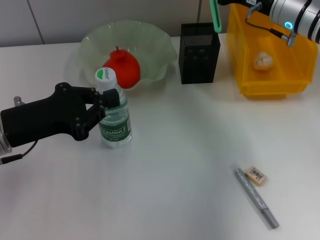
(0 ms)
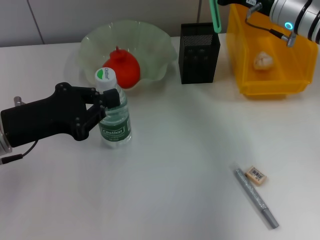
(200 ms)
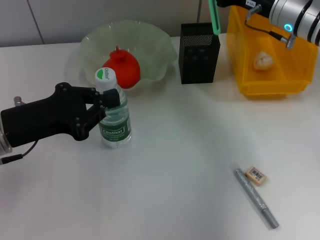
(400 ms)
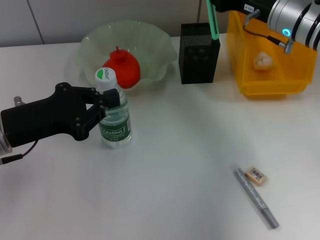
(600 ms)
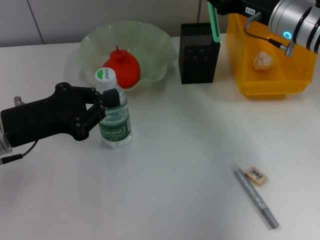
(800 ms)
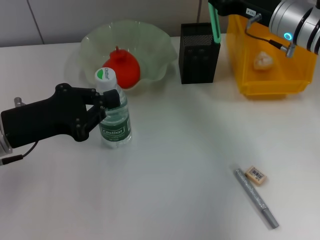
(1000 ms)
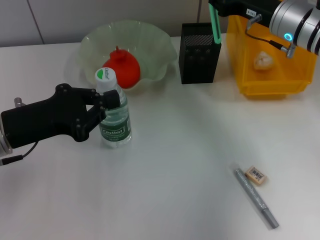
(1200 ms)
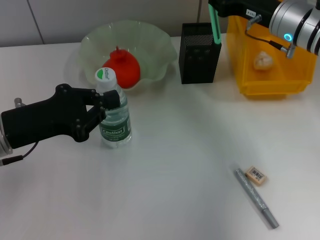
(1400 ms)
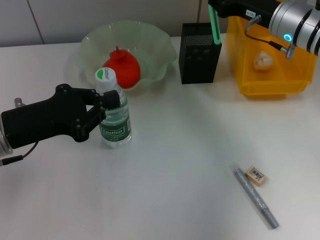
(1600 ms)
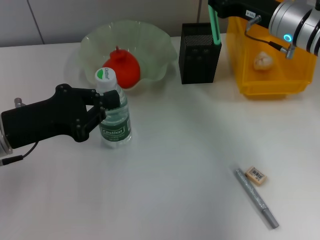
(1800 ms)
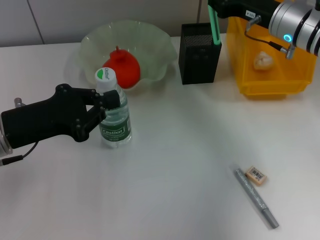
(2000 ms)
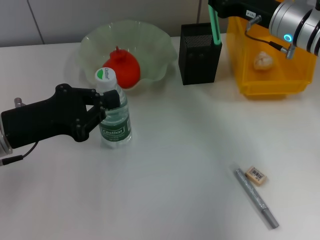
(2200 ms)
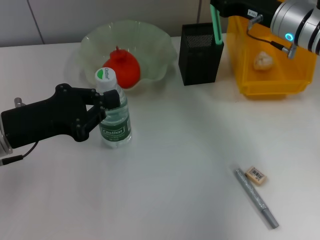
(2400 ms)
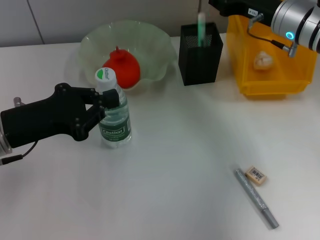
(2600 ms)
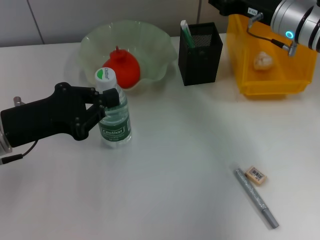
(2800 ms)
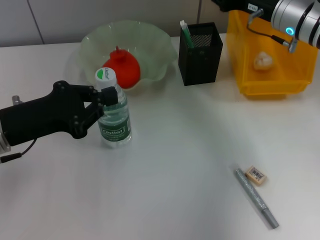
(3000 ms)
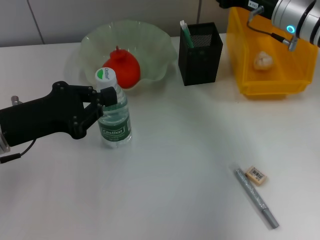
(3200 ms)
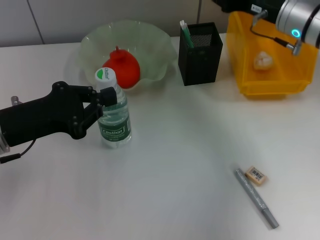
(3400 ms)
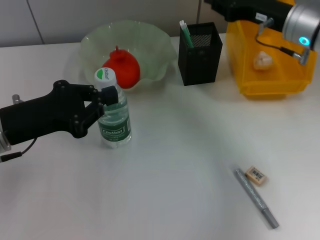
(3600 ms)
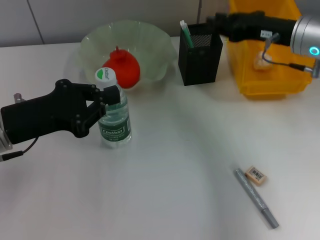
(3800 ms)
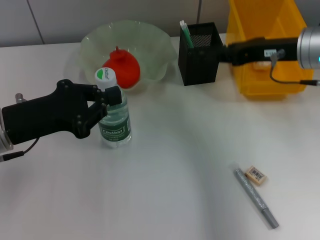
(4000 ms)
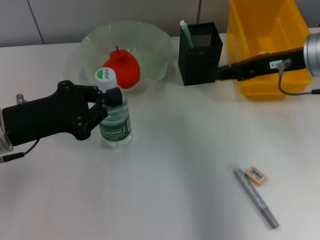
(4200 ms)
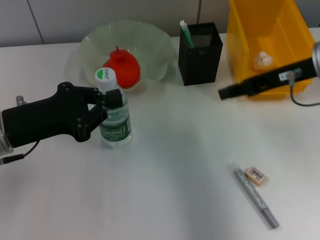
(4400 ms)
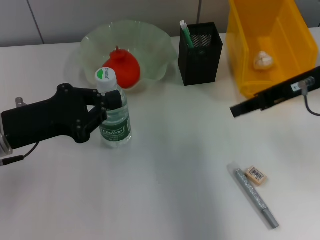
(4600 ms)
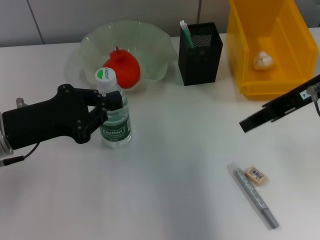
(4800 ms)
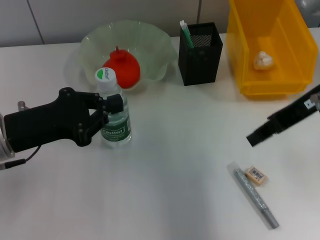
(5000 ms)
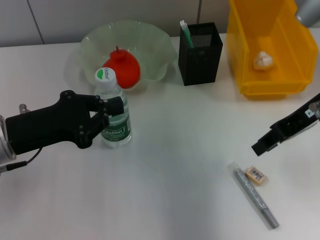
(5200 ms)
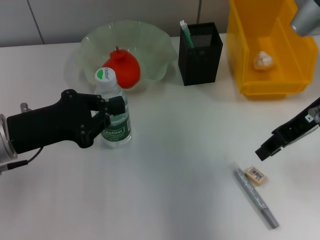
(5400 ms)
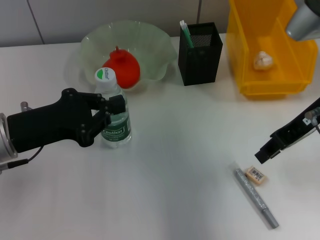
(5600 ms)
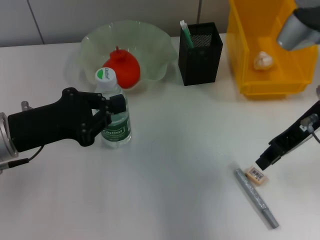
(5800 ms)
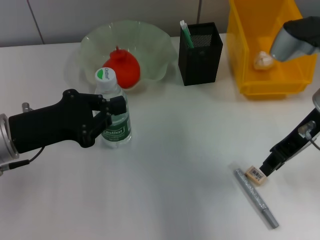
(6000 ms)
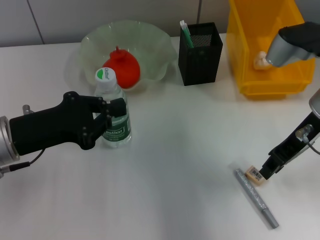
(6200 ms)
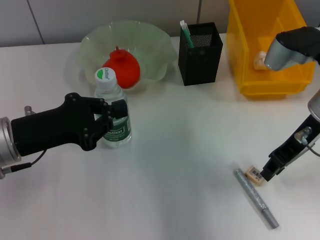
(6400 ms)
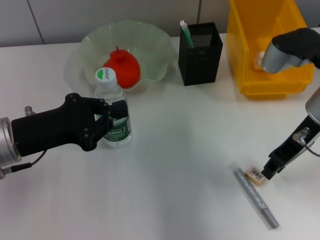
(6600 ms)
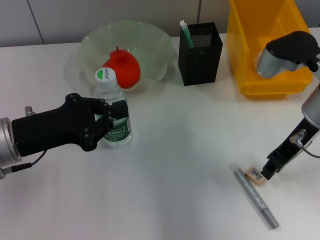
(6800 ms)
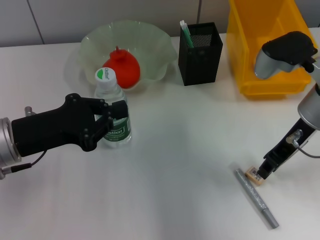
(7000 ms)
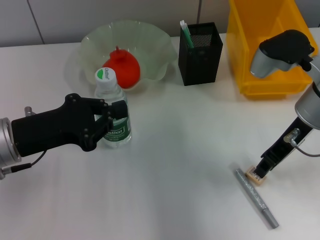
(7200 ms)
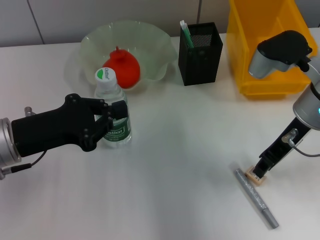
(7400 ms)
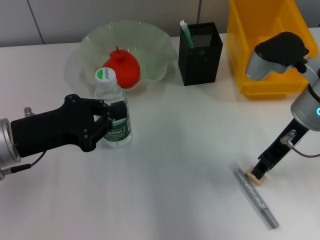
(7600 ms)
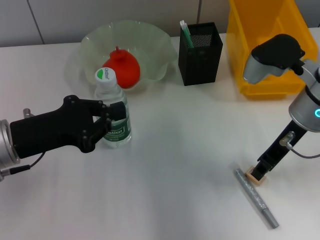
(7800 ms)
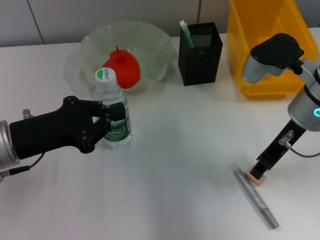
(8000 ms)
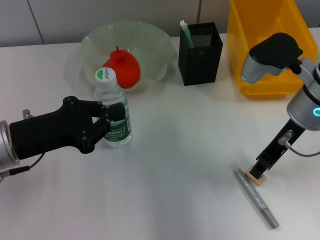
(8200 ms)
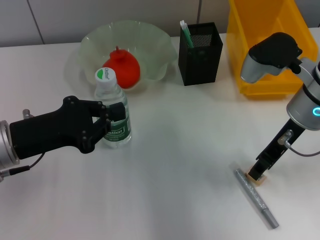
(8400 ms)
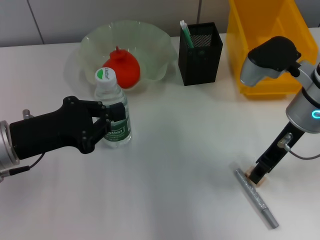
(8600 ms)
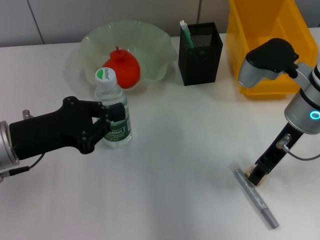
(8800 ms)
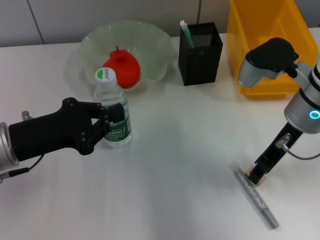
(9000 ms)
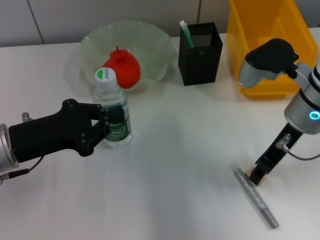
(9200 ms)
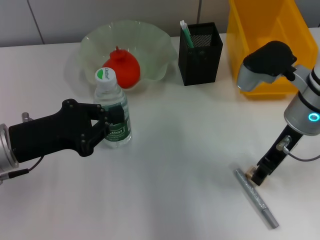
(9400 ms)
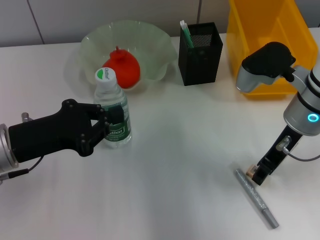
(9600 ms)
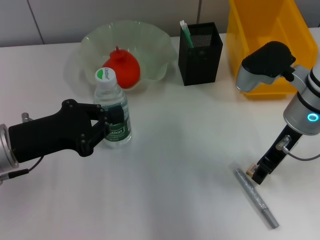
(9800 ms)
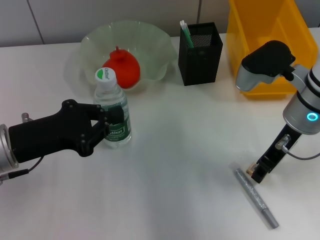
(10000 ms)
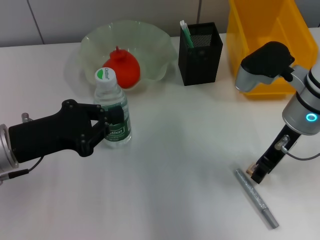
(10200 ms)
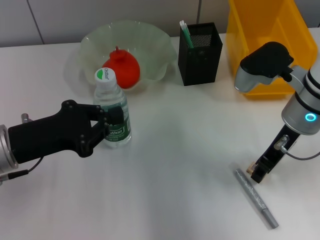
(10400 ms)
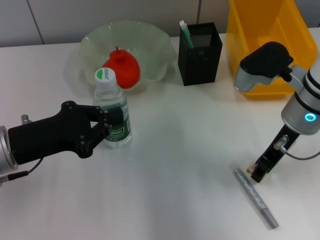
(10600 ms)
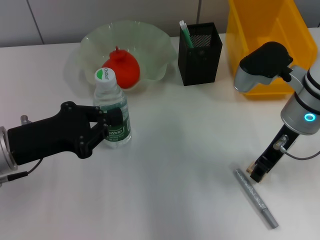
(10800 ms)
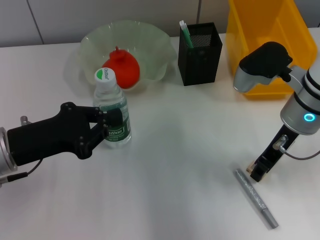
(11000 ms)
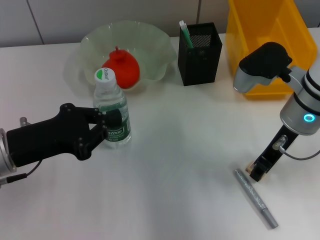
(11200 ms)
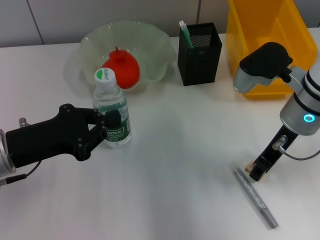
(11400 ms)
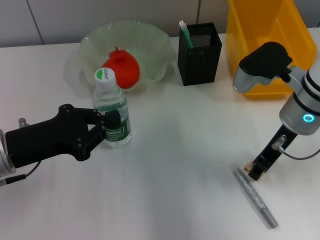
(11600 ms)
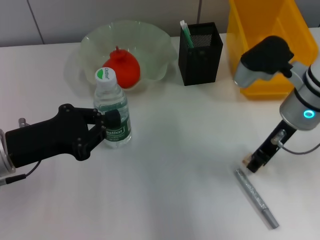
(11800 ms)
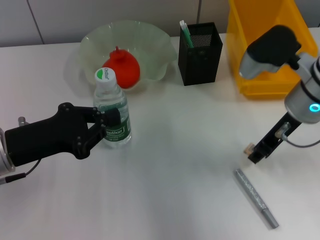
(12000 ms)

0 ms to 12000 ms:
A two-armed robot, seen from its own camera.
Step, 0 ms to 2800 ms: Place the blue utility knife into the pen holder with the right hand.
Step, 3000 ms to 11400 ms: Grab the eraser with the right hand.
0 ms to 1600 ms: The grippers move only a little.
1600 ms to 3000 ms: The two grippers keep their place.
3000 ms to 4400 ms: The right gripper moves backward and upward, roughly 10 cm.
6000 ms to 7600 ms: The grippers stay close to where they were, moving slightly.
7600 ms to 9000 ms: The two grippers keep their place.
9000 ms to 10400 ms: Both grippers stay put.
10400 ms to 12000 ms: The grippers stay close to where they were, moving slightly.

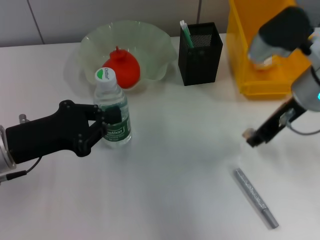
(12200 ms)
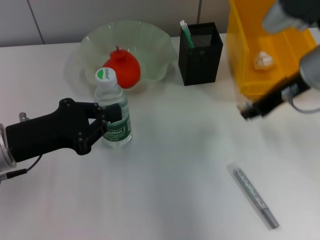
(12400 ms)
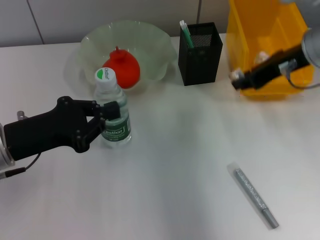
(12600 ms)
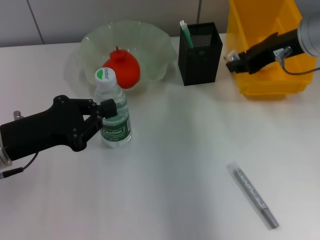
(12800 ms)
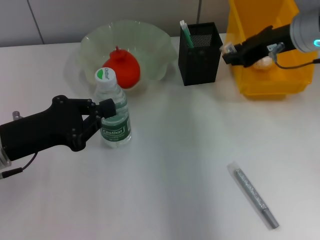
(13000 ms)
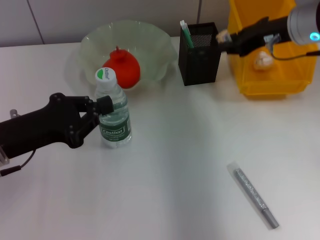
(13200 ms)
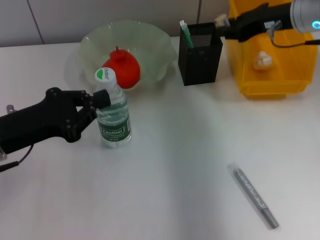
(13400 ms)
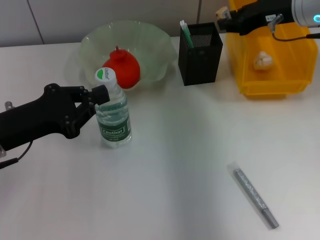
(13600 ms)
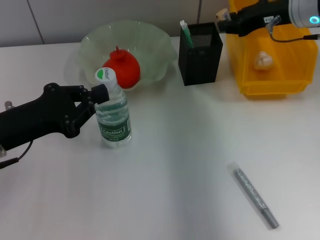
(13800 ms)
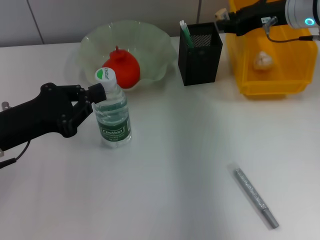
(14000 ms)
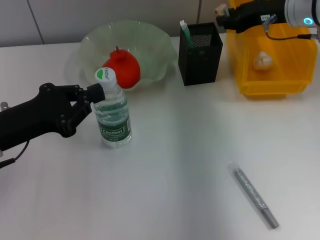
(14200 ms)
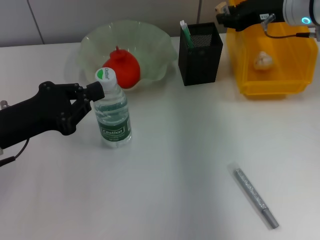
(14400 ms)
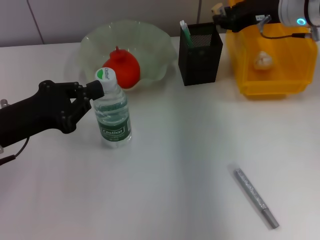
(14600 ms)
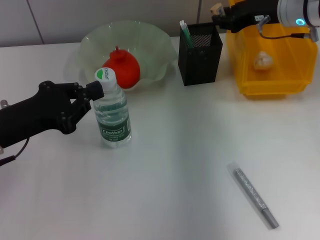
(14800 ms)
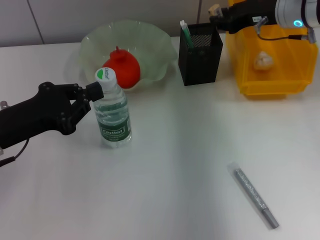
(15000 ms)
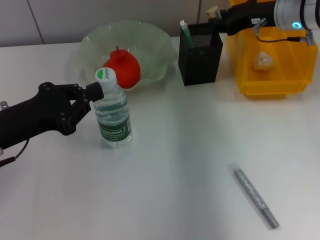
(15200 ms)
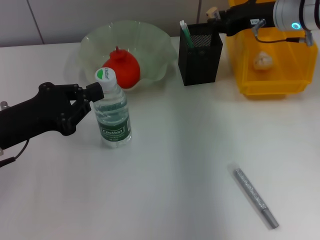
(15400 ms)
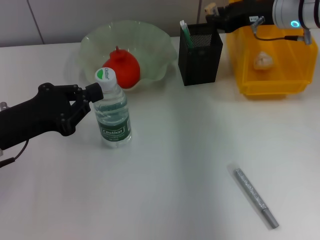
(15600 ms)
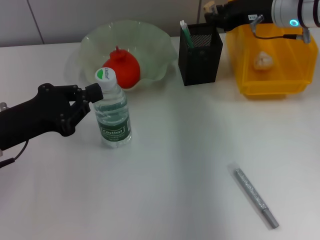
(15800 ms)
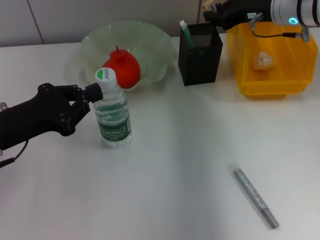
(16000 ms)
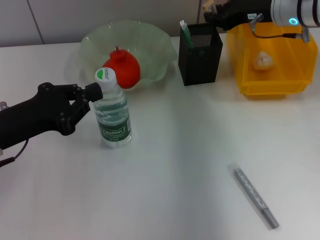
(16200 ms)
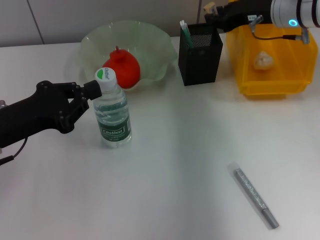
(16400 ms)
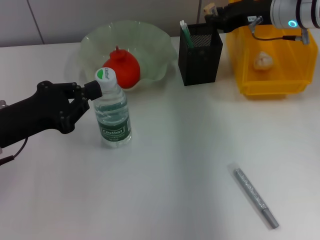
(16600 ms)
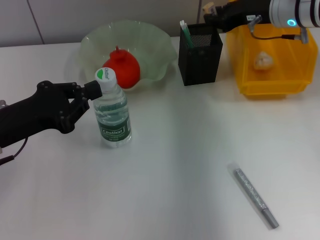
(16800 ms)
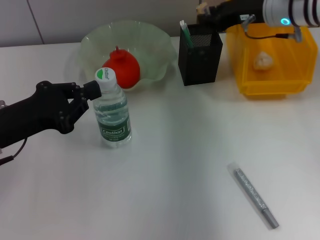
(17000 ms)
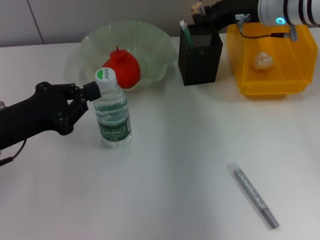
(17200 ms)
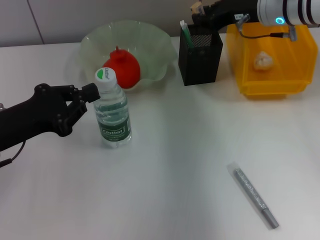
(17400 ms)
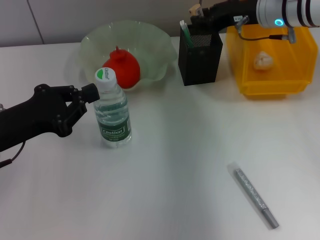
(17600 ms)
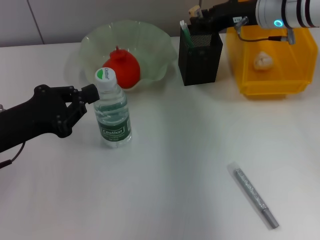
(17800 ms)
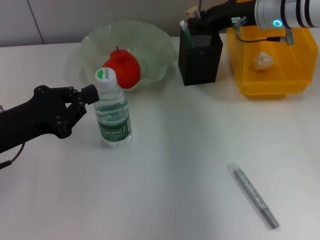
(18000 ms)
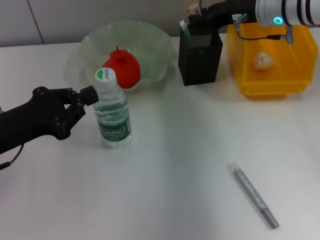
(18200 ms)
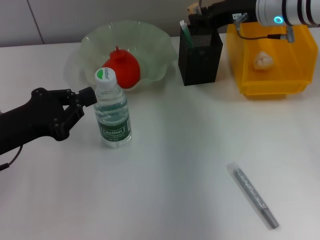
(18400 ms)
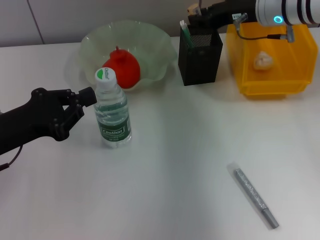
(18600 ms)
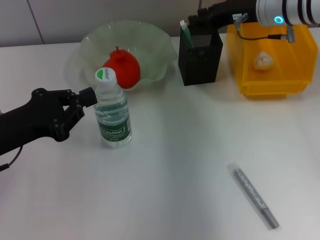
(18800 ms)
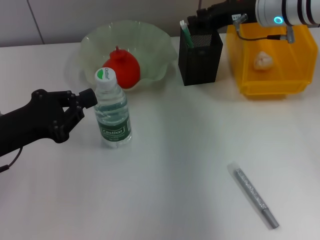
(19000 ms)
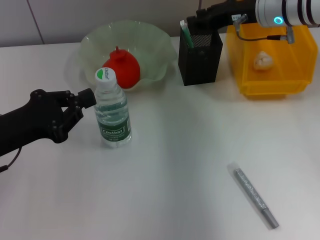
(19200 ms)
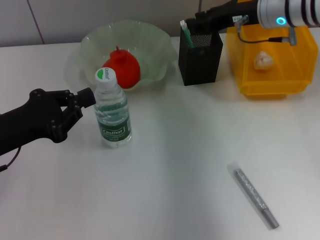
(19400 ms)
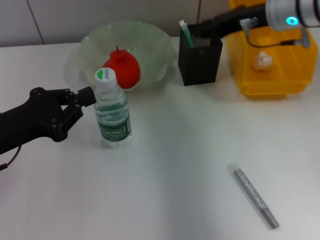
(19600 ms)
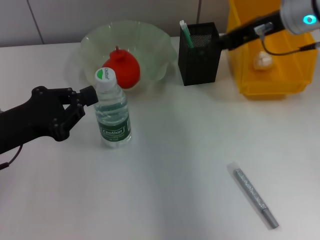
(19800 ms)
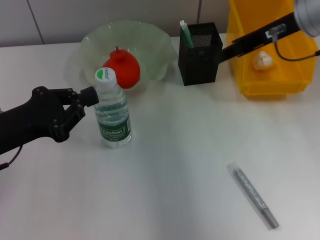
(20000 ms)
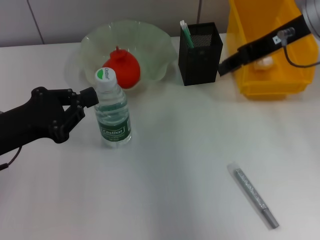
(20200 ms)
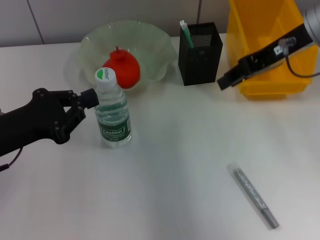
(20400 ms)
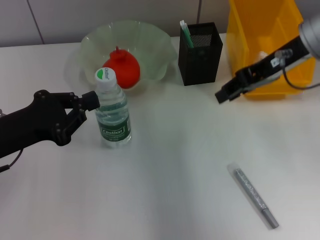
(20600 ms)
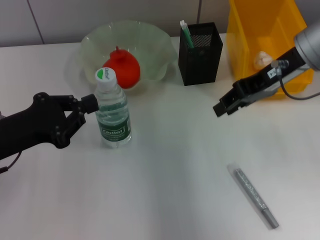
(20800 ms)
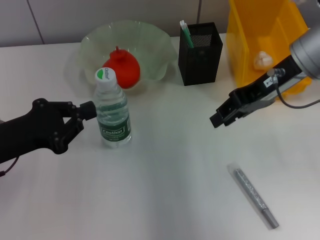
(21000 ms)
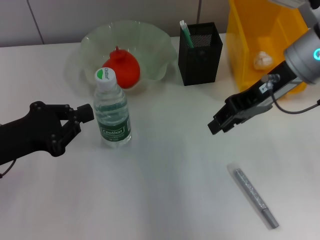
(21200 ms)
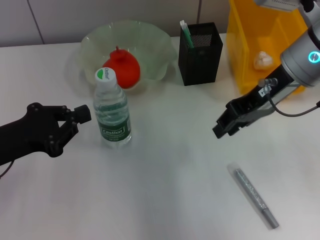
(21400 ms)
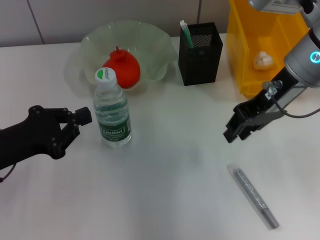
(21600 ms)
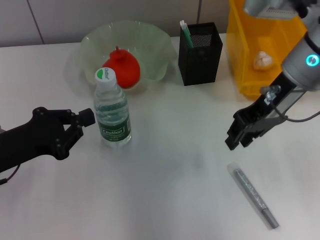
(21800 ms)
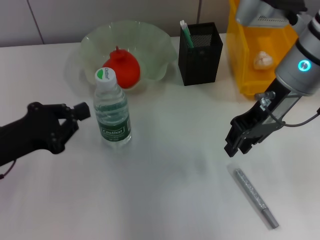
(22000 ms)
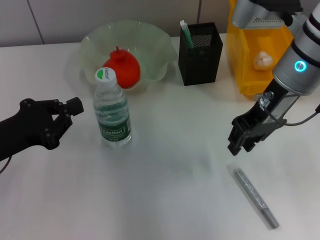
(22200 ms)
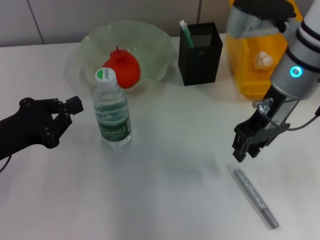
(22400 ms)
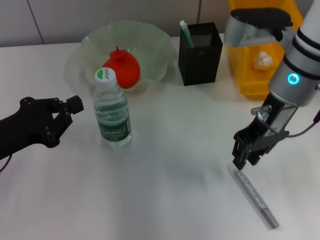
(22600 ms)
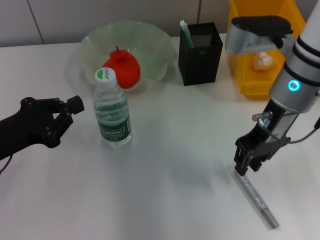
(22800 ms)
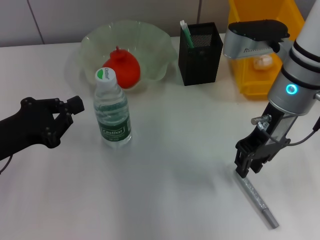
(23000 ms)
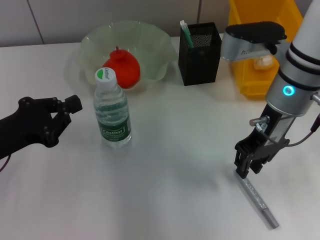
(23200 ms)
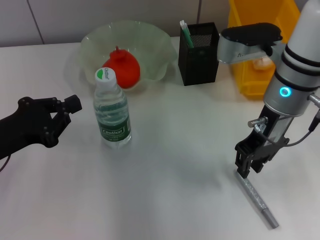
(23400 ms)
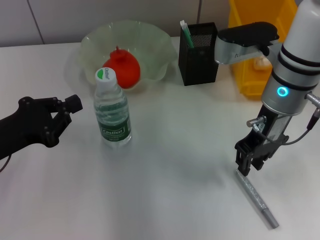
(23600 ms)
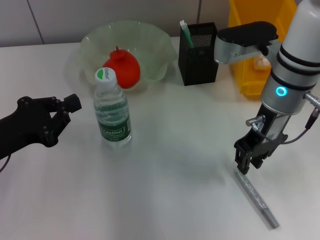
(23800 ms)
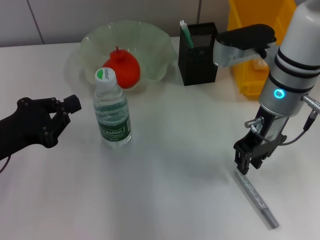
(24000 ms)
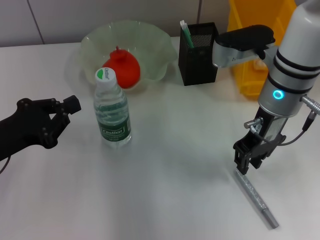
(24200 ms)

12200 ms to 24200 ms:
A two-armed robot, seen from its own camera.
Step, 12200 ms to 19000 ms: Put the eraser into the pen holder with the right hand.
12200 ms to 13800 ms: The right gripper shifts about 10 cm forward.
13800 ms to 15200 ms: The grippers move only a little.
15200 ms to 16600 ms: Neither gripper changes place.
16600 ms to 18200 ms: The grippers move only a little.
18200 ms to 19800 ms: The right gripper moves backward and upward, approximately 10 cm.
19800 ms to 21200 ms: The right gripper goes some 5 cm backward.
22600 ms to 24200 ms: The grippers make only small movements.
